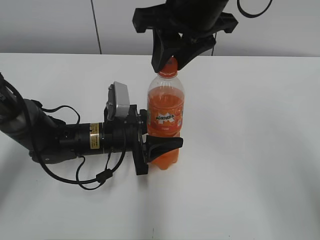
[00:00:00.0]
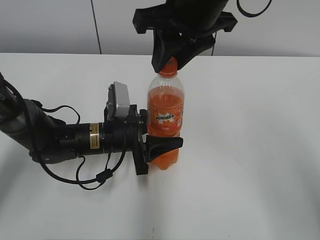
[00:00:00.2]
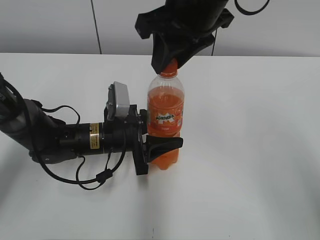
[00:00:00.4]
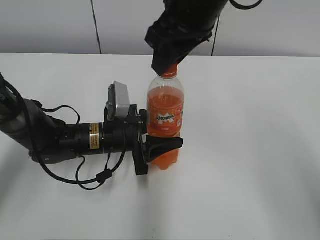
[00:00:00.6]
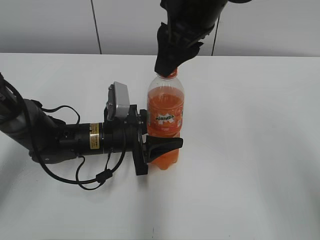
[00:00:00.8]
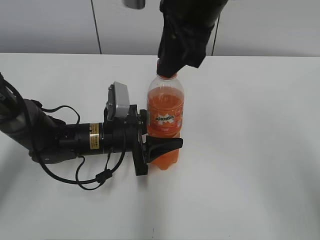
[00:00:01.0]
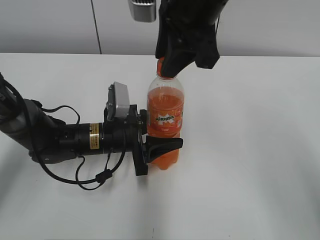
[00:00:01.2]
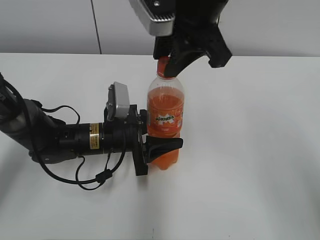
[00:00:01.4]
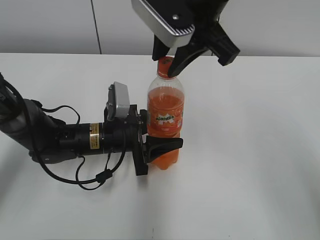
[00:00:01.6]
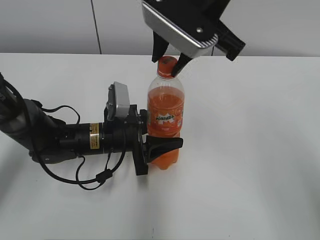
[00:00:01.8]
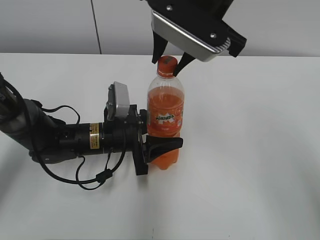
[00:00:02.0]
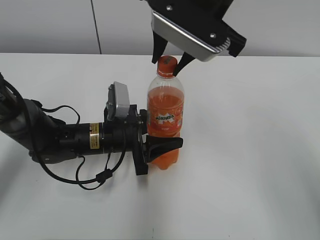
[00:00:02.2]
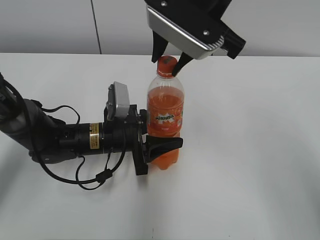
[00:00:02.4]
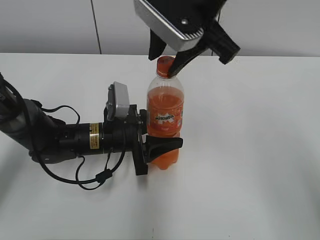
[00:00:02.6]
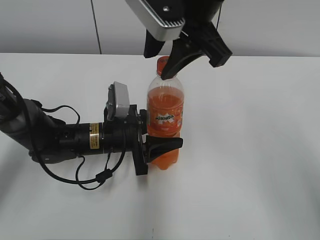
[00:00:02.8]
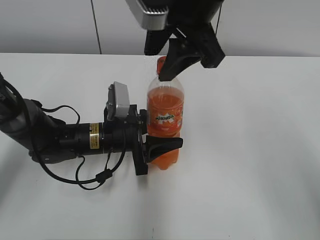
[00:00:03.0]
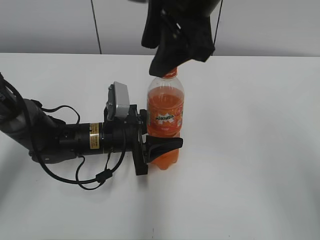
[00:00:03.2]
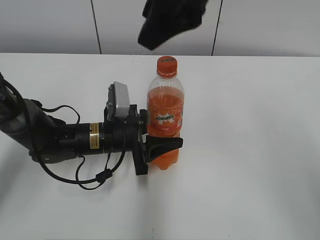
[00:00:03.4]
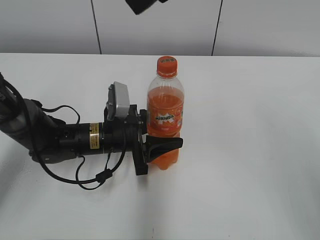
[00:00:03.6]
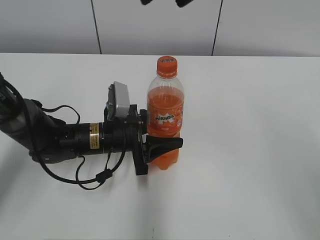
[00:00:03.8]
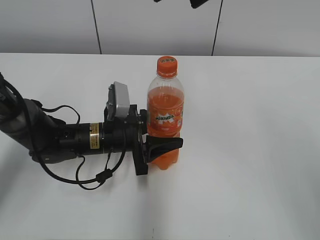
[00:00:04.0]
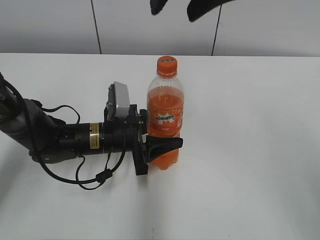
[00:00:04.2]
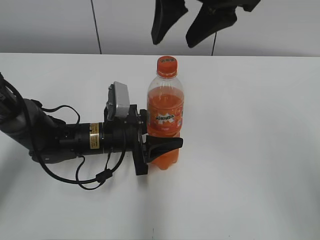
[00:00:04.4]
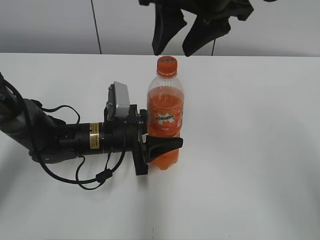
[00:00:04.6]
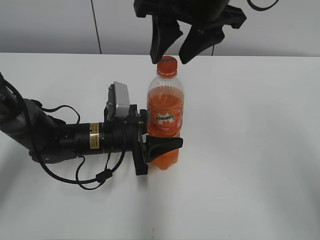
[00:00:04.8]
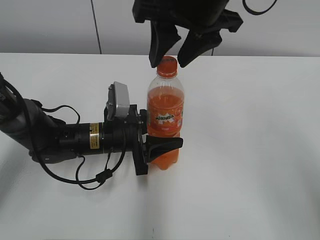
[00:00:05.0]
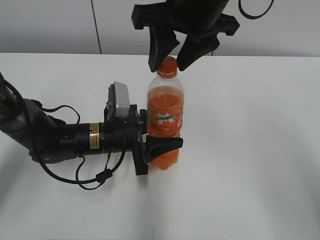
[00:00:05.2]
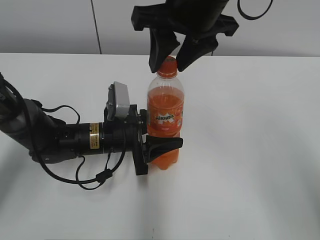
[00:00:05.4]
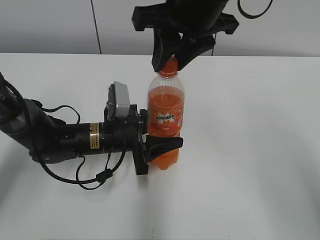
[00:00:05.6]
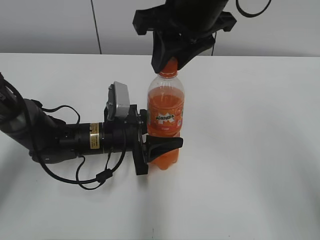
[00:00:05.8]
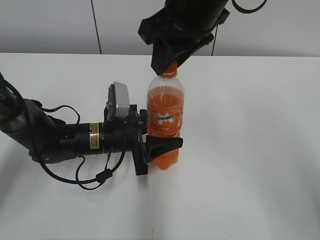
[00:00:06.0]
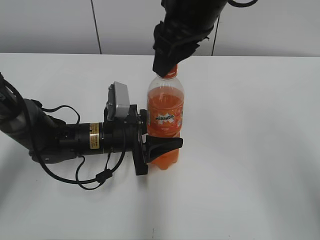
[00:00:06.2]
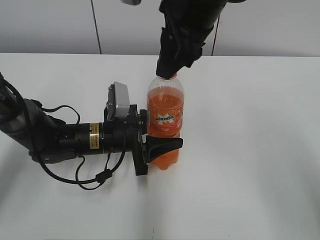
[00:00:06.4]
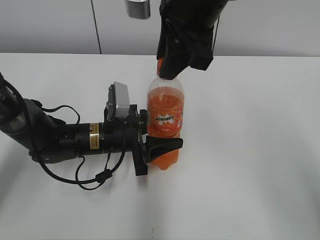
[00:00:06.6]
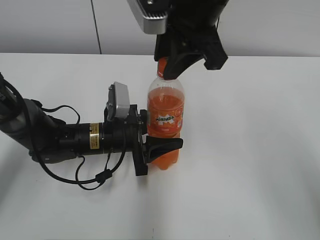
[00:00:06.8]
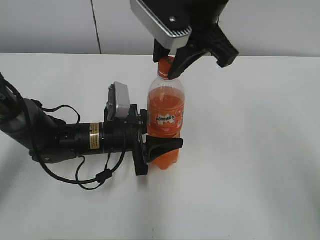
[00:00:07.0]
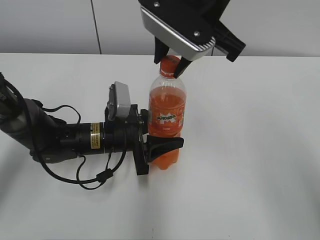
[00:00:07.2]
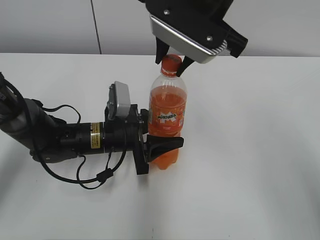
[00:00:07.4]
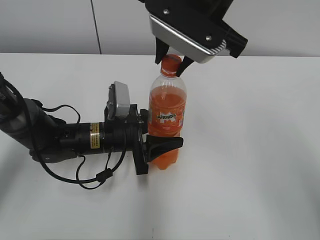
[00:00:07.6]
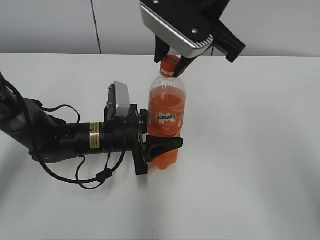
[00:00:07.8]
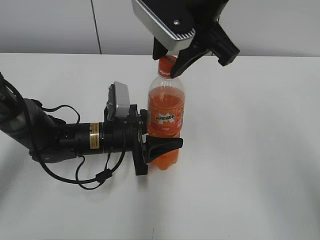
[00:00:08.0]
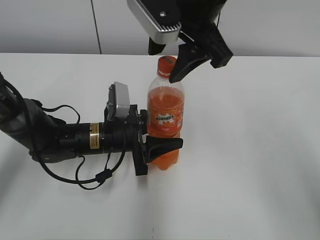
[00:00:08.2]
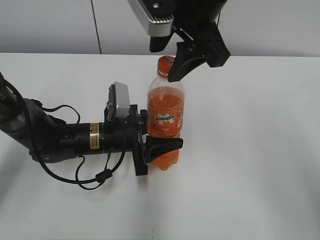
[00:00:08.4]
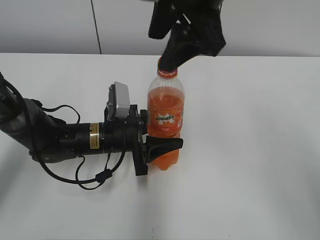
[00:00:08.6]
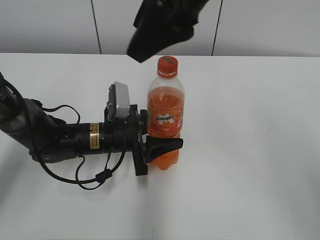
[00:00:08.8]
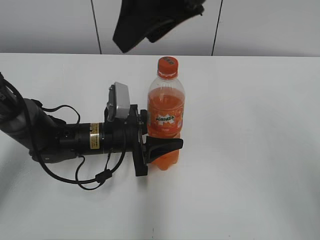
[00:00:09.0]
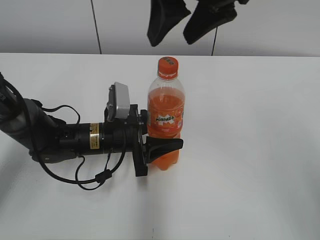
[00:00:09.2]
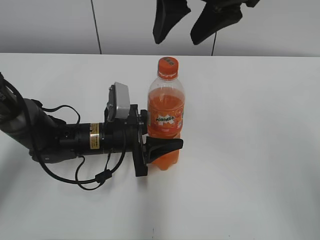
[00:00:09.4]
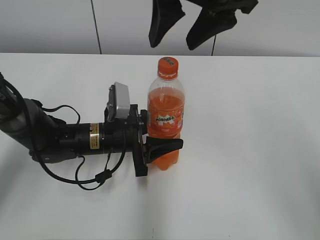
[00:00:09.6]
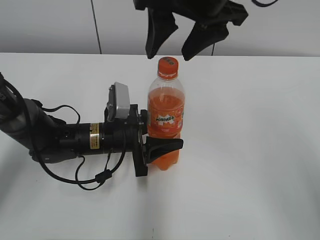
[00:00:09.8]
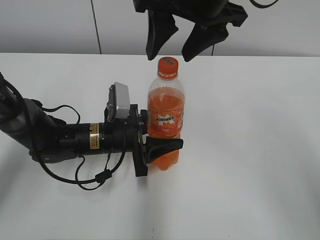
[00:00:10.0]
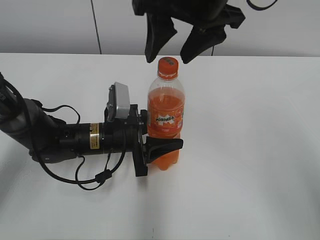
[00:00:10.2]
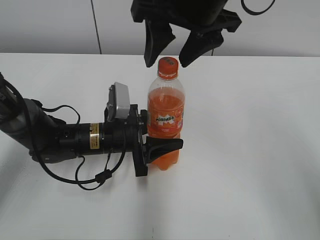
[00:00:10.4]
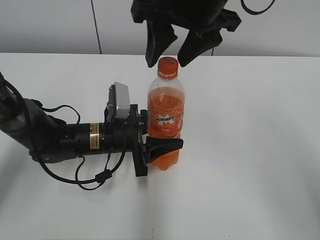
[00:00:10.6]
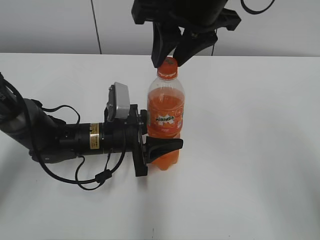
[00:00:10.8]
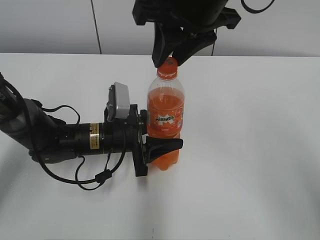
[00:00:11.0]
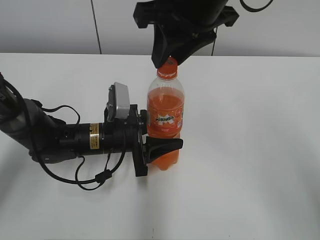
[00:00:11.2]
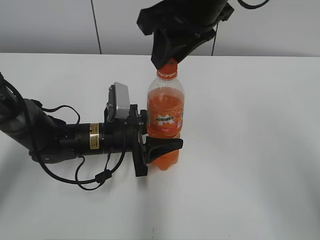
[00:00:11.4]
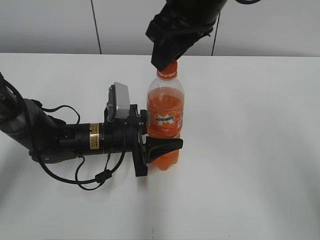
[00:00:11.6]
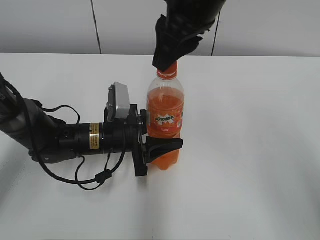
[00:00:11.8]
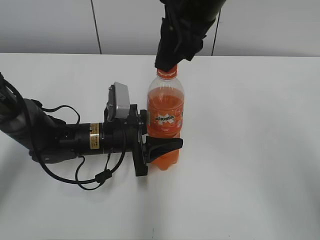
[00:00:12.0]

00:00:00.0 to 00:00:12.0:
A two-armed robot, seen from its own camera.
00:00:04.4 to 00:00:06.0: The right gripper closes.
00:00:07.6 to 00:00:09.0: The right gripper is displaced upward by roughly 5 cm, and opens its fingers.
00:00:09.0 to 00:00:10.4: The right gripper changes place by about 5 cm.
00:00:10.4 to 00:00:12.0: The right gripper closes.

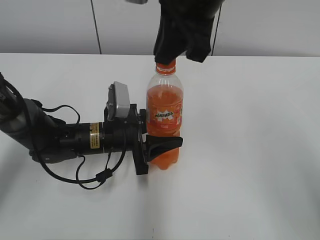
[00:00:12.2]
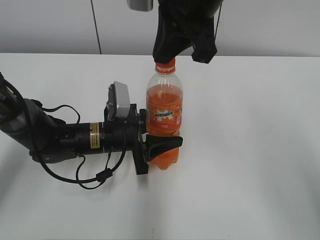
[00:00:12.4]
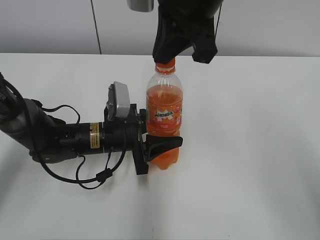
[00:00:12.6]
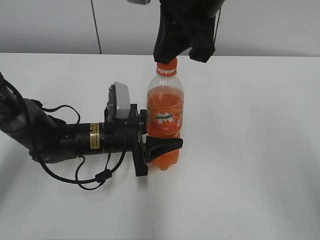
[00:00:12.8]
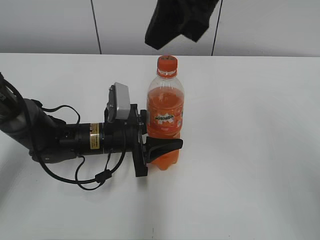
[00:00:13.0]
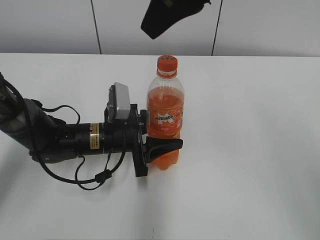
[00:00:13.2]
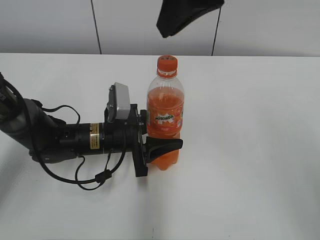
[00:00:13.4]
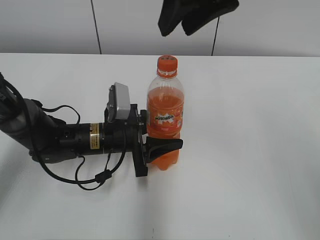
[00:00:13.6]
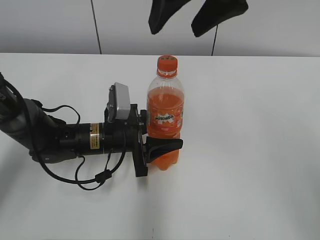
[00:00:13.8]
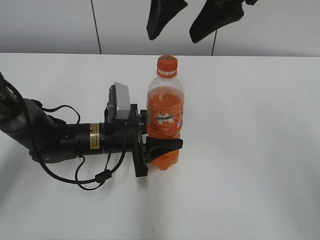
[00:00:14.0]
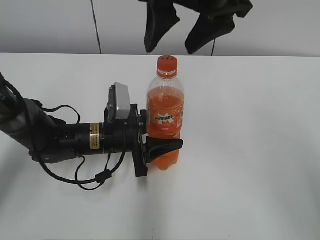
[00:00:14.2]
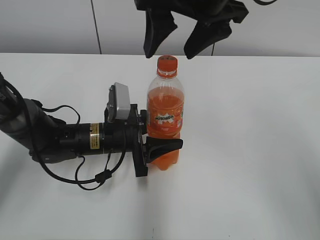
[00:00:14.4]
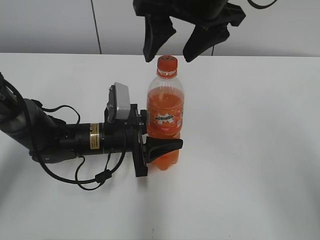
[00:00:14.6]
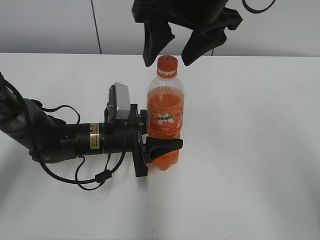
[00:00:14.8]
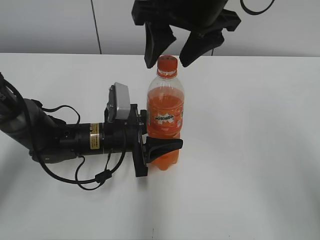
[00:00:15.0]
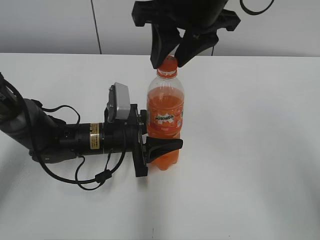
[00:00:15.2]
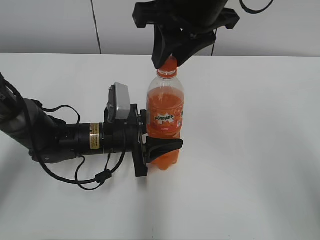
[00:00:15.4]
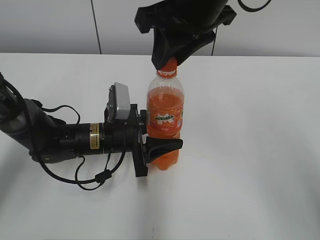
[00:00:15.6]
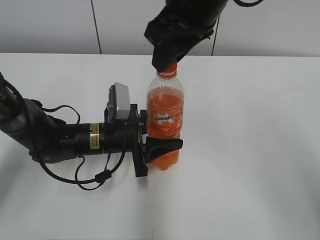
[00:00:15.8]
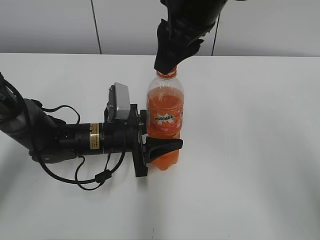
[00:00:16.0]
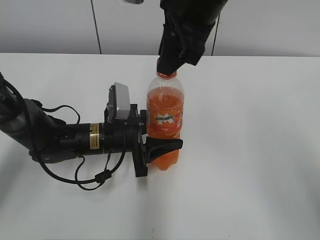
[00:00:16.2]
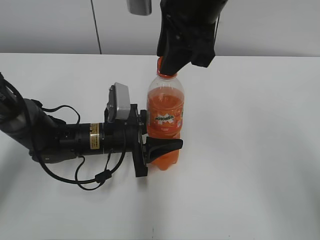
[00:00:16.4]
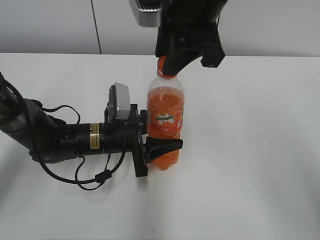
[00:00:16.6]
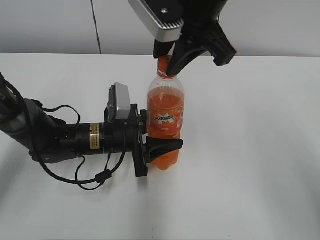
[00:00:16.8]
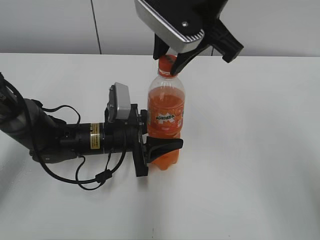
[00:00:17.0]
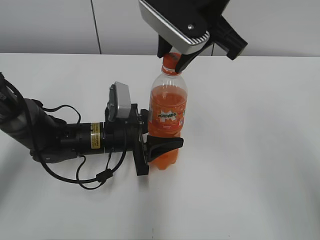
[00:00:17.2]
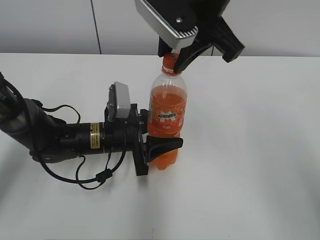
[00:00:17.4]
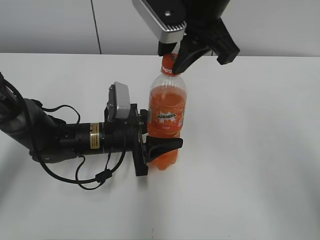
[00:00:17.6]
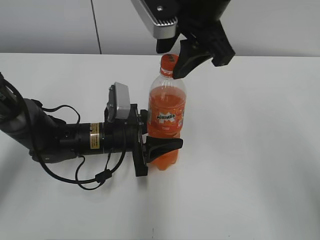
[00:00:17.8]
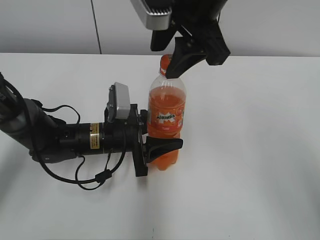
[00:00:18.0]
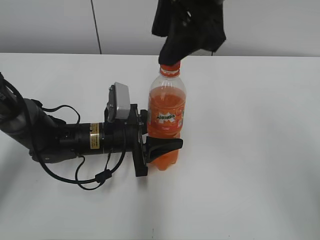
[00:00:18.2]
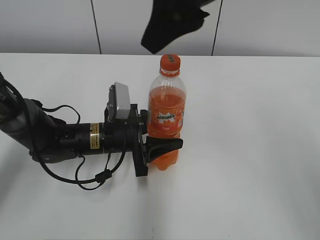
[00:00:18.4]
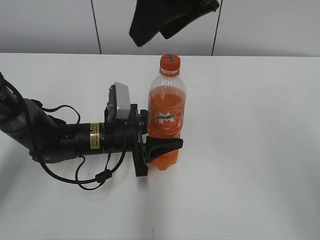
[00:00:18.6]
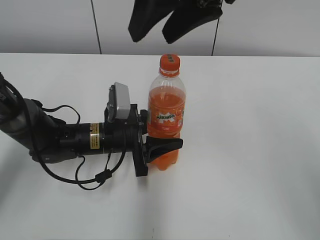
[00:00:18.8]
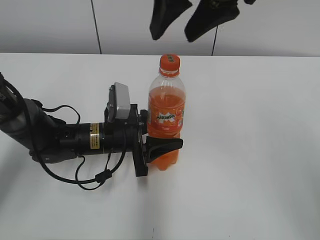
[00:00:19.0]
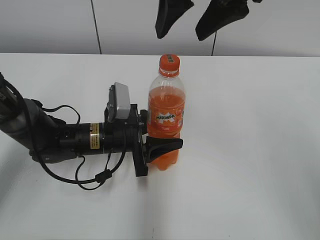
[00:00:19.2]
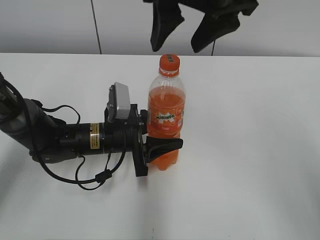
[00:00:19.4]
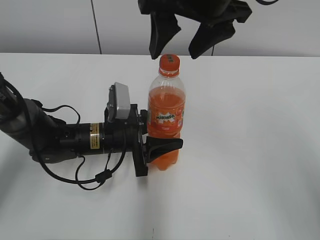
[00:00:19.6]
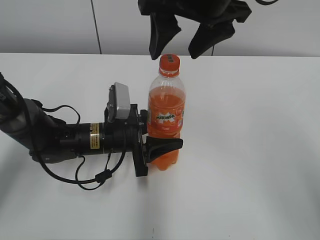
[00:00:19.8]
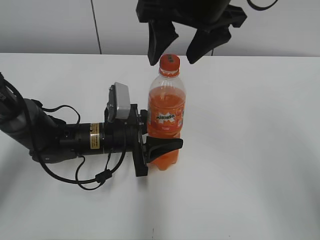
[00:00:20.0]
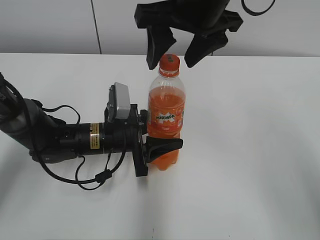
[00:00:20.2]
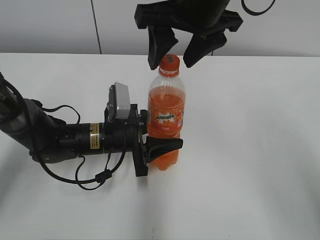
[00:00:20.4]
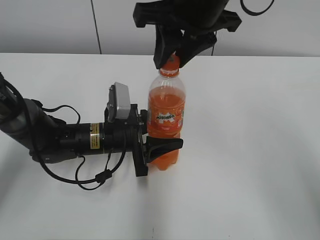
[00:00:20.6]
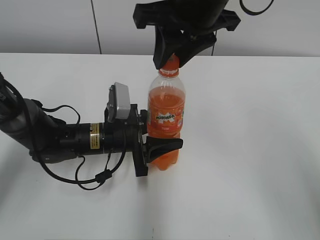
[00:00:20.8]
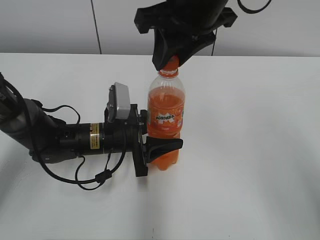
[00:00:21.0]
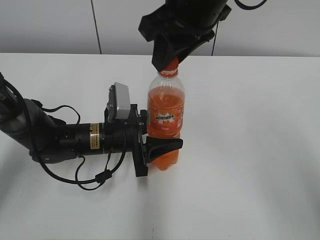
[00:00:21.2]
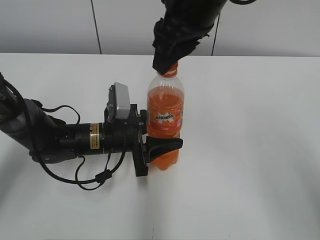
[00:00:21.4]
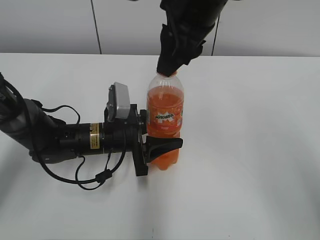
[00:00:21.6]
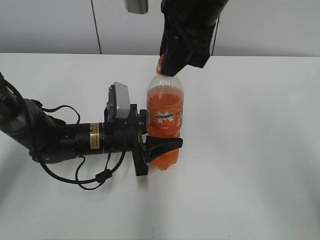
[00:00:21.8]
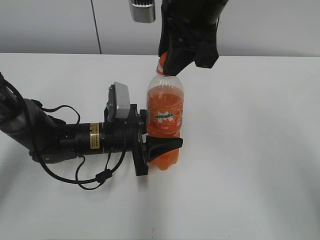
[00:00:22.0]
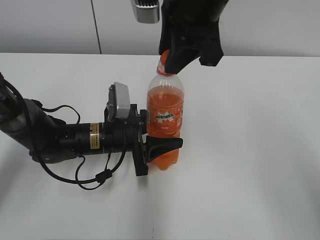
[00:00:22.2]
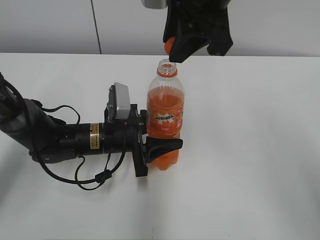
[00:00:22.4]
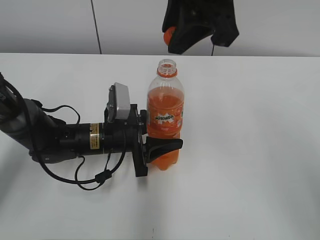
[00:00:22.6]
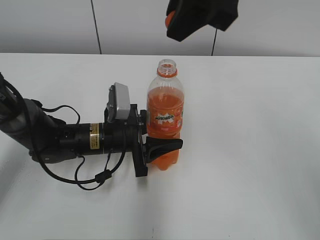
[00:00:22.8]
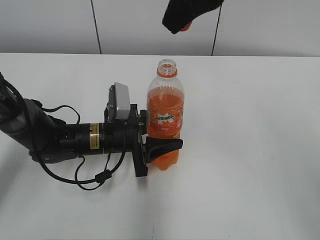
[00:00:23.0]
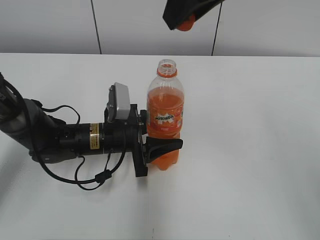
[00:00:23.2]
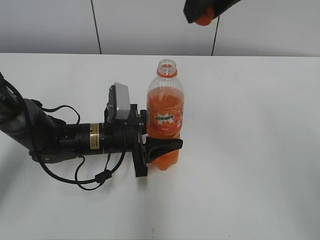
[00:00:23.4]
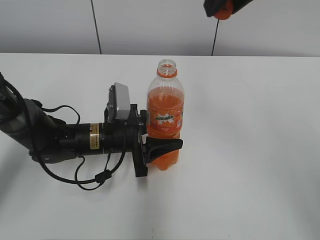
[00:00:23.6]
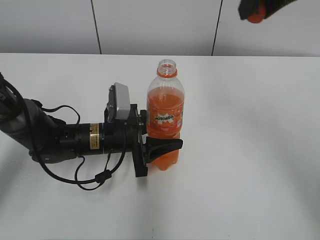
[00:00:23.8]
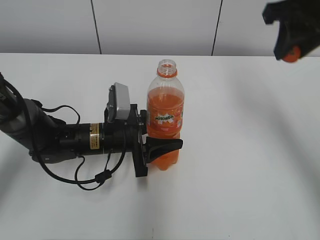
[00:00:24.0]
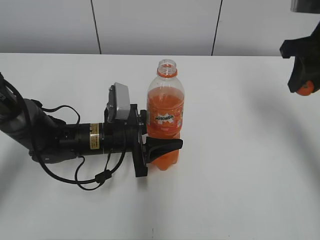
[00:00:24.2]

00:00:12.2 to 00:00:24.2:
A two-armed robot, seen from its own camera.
00:00:12.2 to 00:00:13.8: The right gripper ends up roughly 5 cm from where it was, and opens.
00:00:13.8 to 00:00:15.2: The right gripper is displaced downward by about 5 cm, and closes its fingers.
00:00:16.6 to 00:00:18.2: The right gripper opens up.
00:00:19.8 to 00:00:21.2: The right gripper closes its fingers.
00:00:22.6 to 00:00:24.2: The right gripper shifts some 20 cm to the right and downward.
